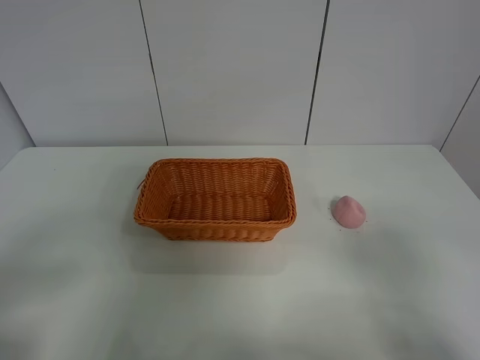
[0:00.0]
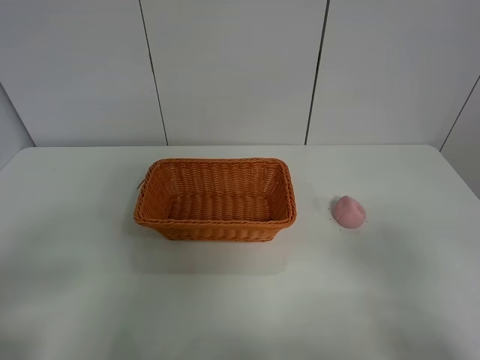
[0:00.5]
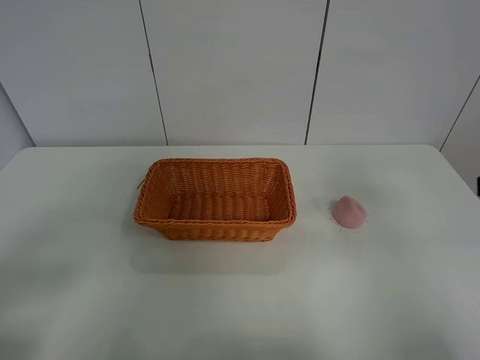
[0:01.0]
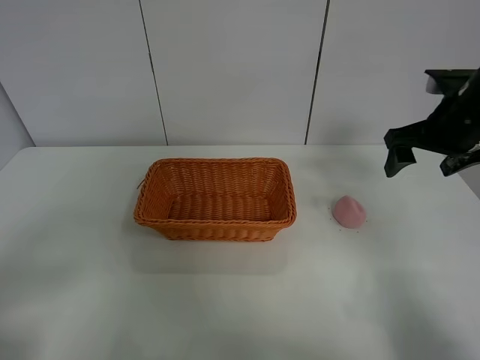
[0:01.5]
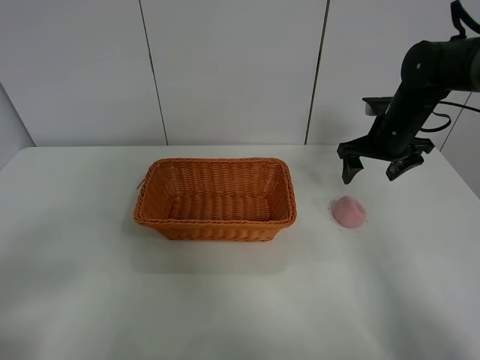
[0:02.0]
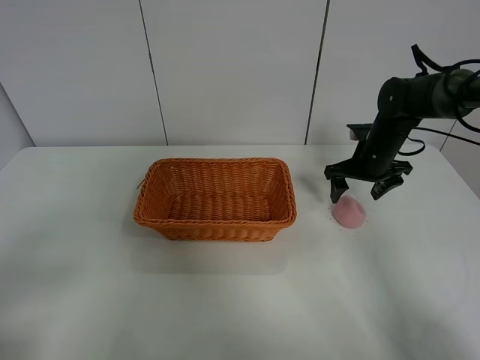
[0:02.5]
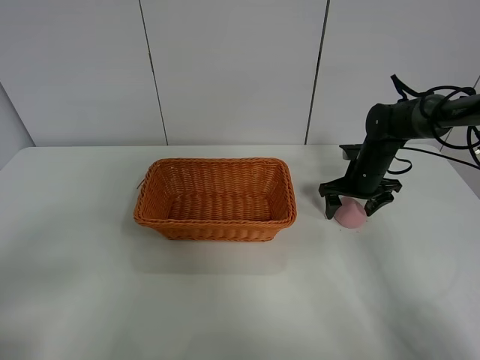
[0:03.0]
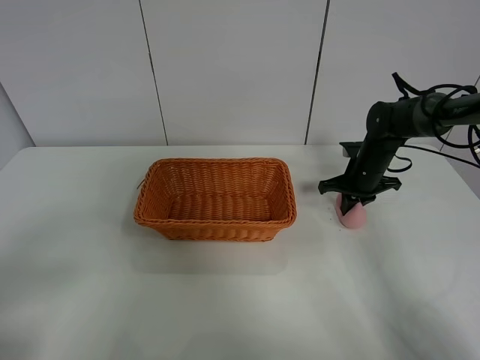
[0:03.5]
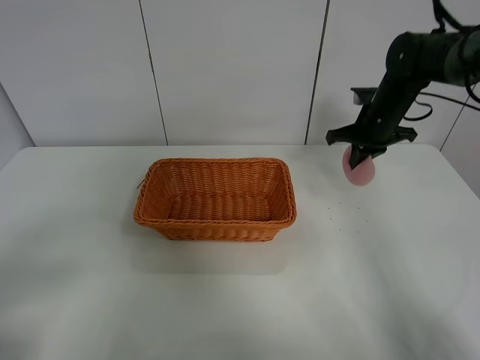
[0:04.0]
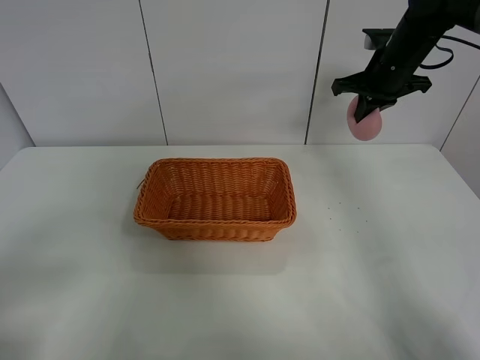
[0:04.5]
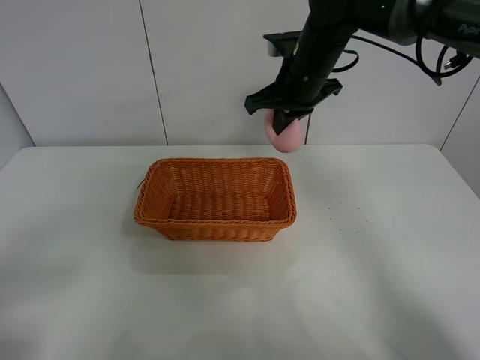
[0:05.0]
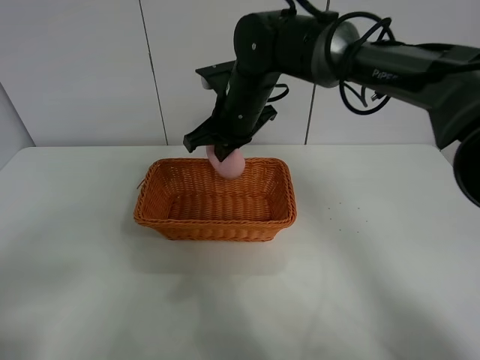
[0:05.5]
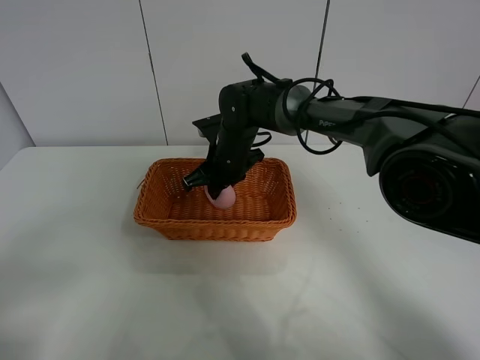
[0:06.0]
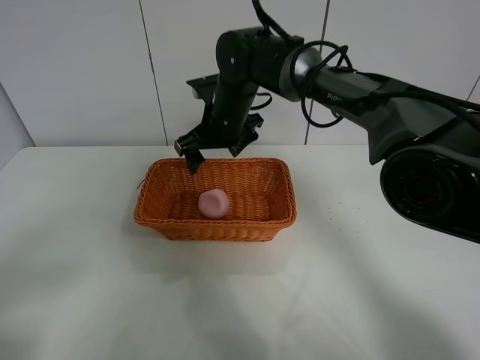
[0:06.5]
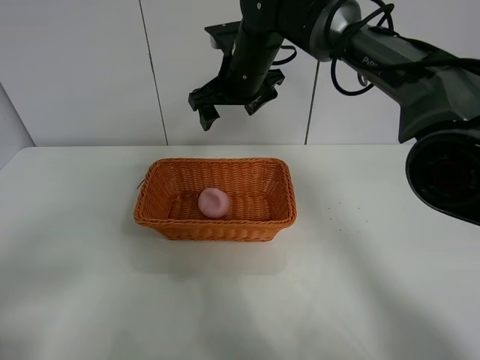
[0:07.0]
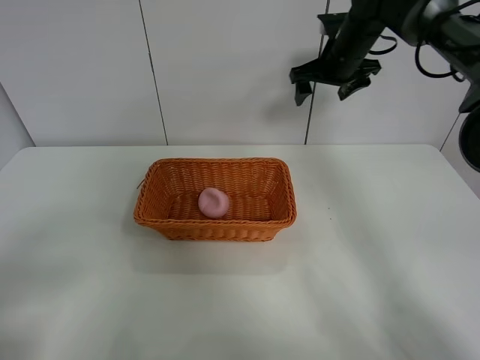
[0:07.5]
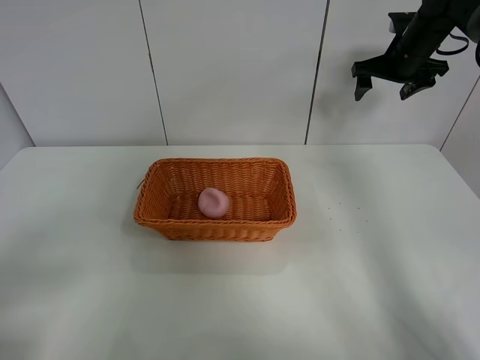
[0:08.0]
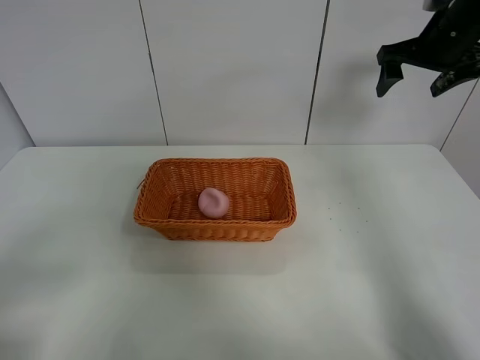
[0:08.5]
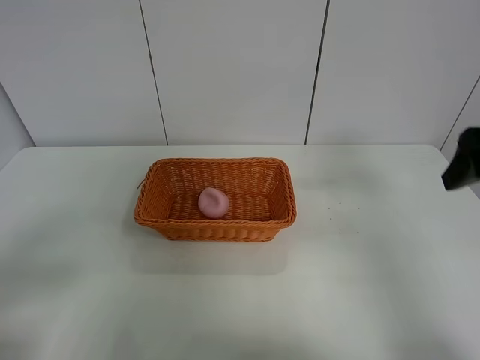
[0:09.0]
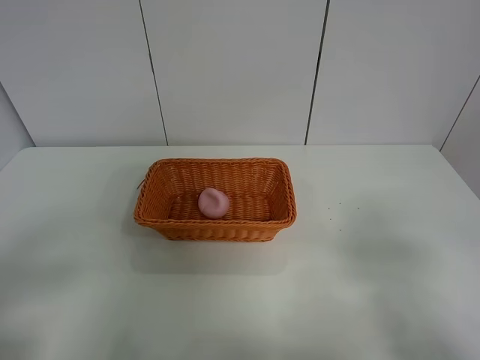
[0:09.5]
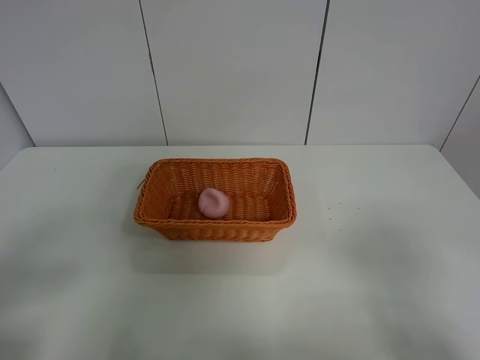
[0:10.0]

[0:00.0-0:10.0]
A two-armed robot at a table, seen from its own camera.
Step, 0:00.0 to 0:03.5: Grasp the peach with right gripper.
Step, 0:04.0 to 0:06.5: Place the peach in the basket with right gripper.
0:00.0 to 0:02.0: The right gripper heads forward, covering approximately 40 cm.
0:02.0 to 0:04.0: The right gripper reaches approximately 10 cm downward, then returns, and closes up.
0:04.0 to 0:06.0: The right gripper heads to the left, covering some 25 cm, and opens.
0:06.0 to 0:08.0: The right gripper shifts roughly 35 cm to the right and upward, and opens its fingers.
0:08.0 to 0:10.0: The right gripper goes approximately 50 cm backward.

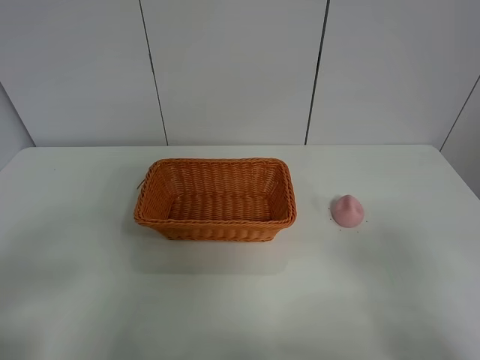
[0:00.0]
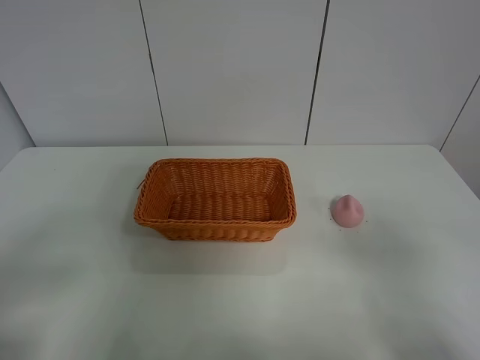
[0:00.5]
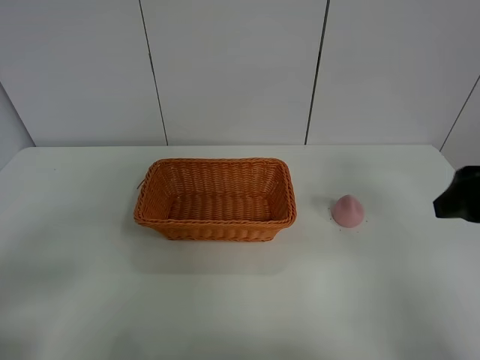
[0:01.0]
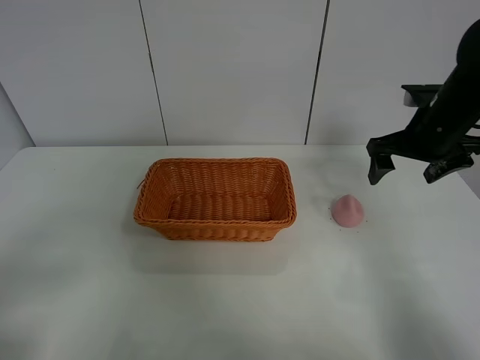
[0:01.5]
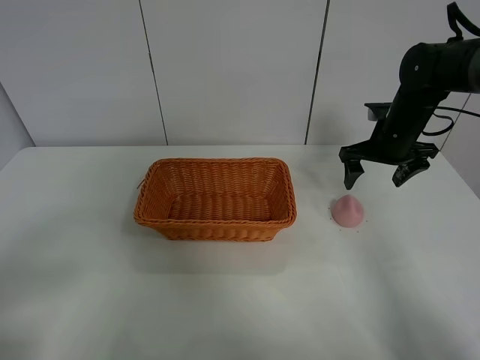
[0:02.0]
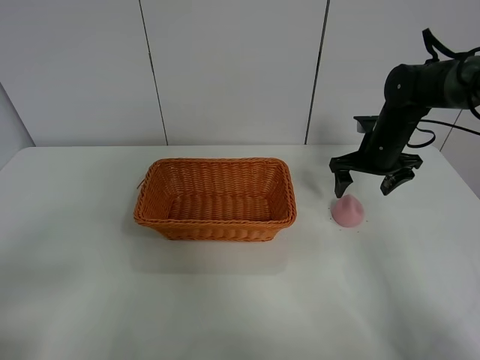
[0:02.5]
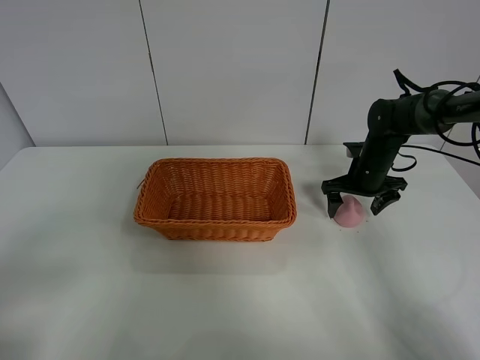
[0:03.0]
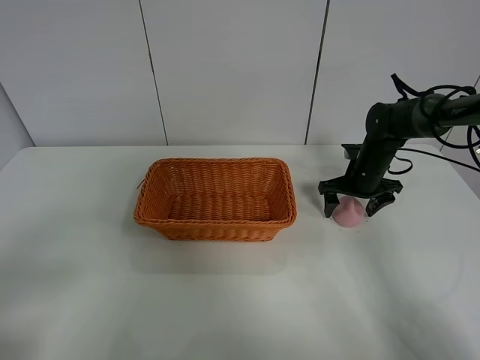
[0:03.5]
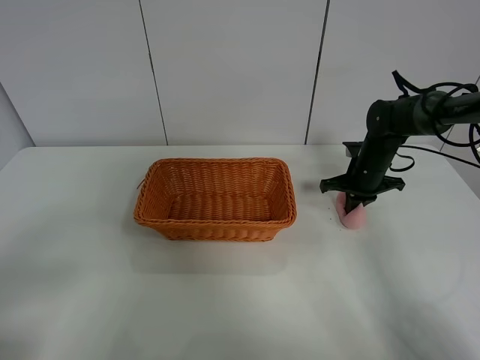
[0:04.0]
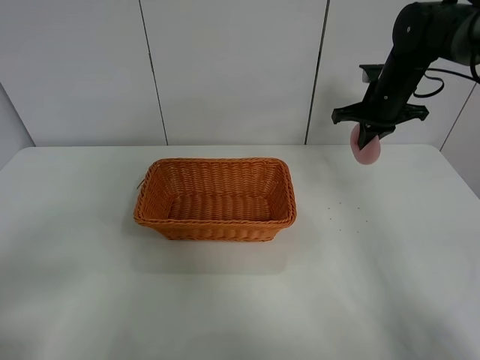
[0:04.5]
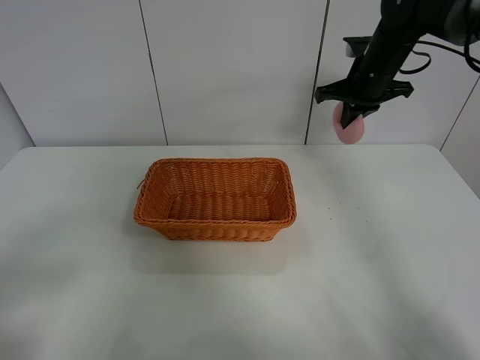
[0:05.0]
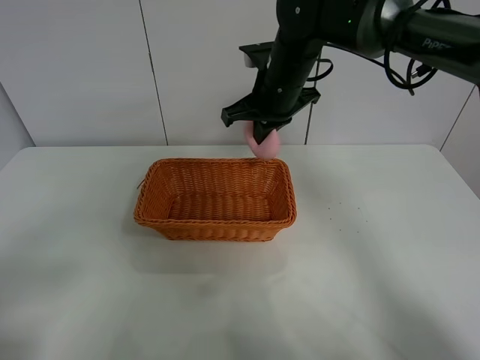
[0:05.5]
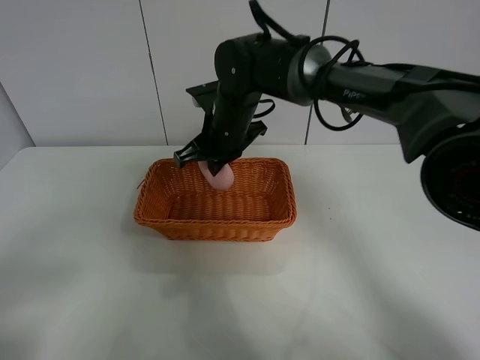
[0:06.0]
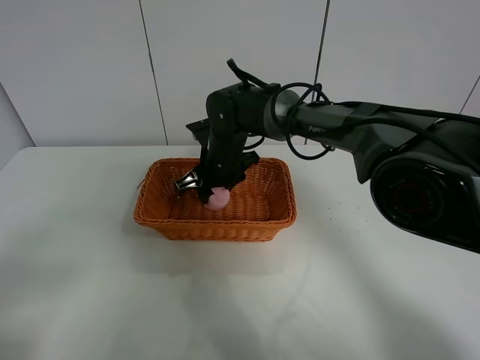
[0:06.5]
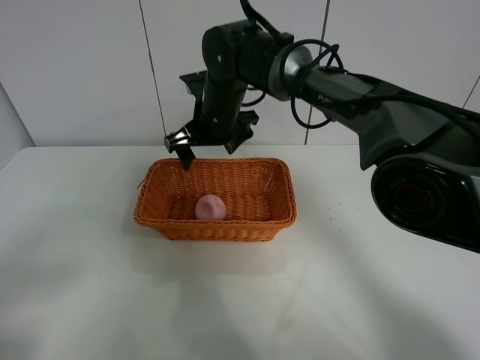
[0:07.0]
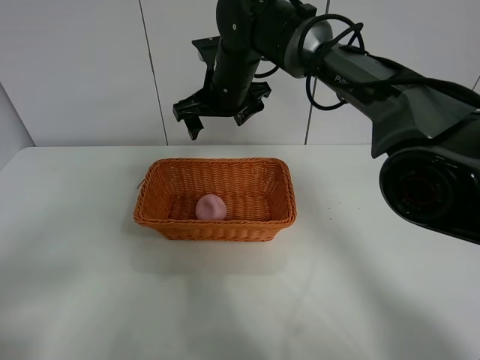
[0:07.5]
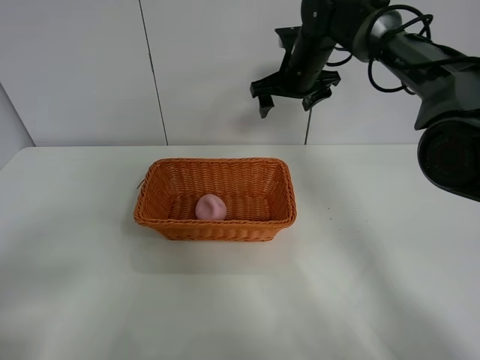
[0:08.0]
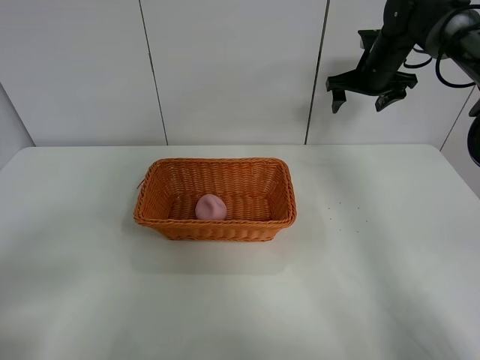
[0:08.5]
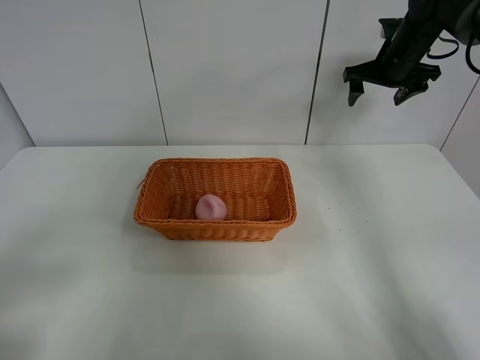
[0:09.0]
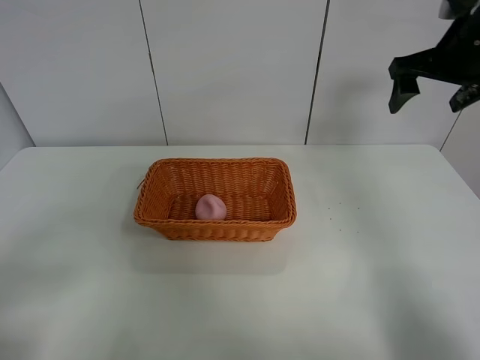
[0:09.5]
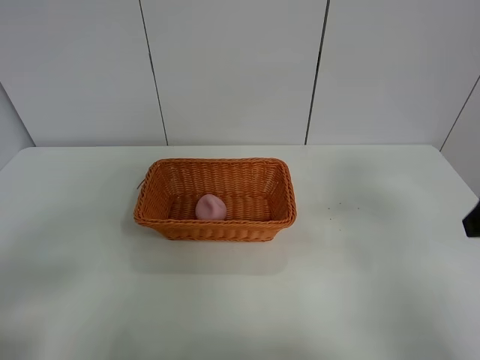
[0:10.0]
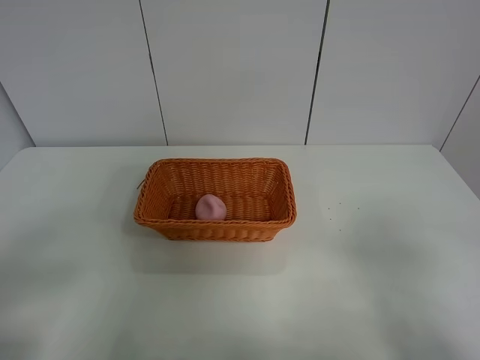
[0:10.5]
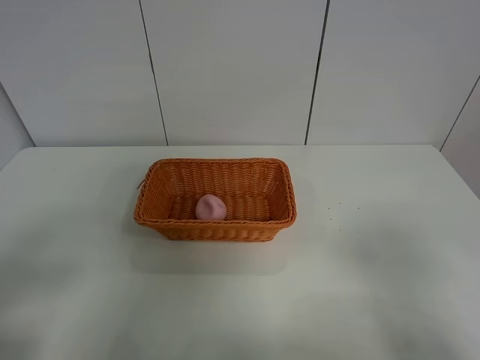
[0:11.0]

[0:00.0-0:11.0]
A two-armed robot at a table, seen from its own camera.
Step, 0:00.0 to 0:03.5: Grasp the peach with right gripper.
Step, 0:04.0 to 0:07.0: Place the peach in the basket with right gripper.
0:00.0 to 0:02.0: The right gripper travels forward by about 40 cm.
0:02.0 to 0:03.5: The right gripper shifts approximately 10 cm downward.
0:03.5 to 0:05.5: The right gripper moves to the left and upward, roughly 25 cm, and closes.
0:05.5 to 0:07.5: The right gripper heads to the left, covering approximately 5 cm, travels downward and back again, roughly 10 cm each way, and opens its fingers.
0:07.5 to 0:09.0: The right gripper travels to the right by approximately 30 cm.
0:09.0 to 0:11.0: The right gripper heads backward, covering about 50 cm.
